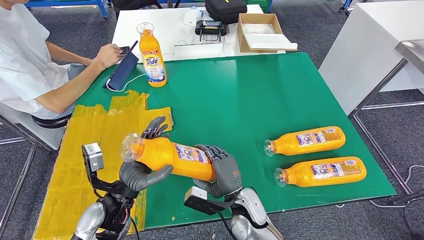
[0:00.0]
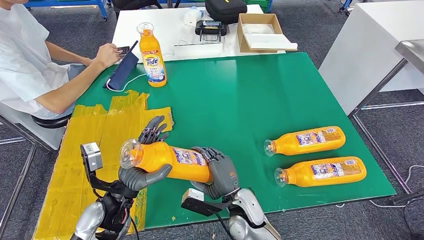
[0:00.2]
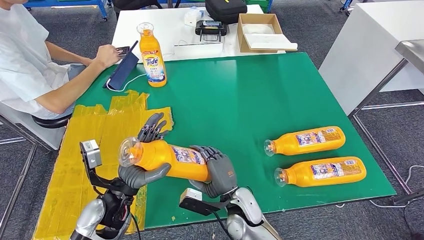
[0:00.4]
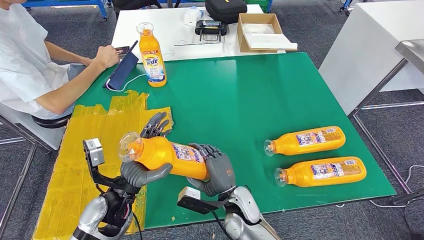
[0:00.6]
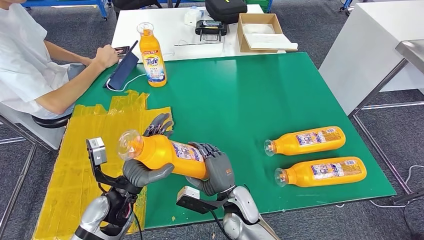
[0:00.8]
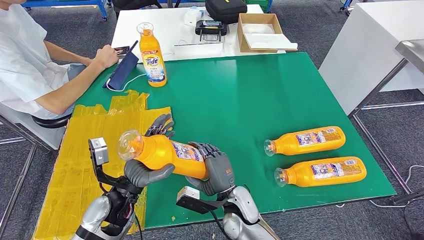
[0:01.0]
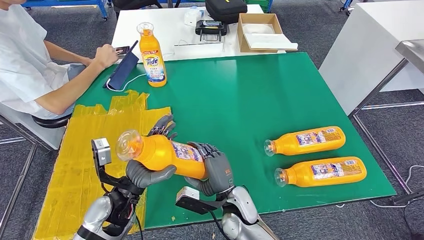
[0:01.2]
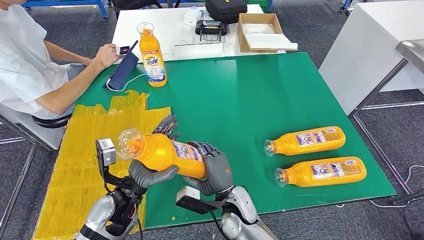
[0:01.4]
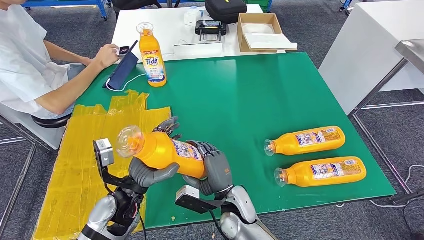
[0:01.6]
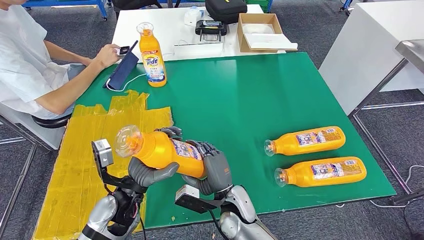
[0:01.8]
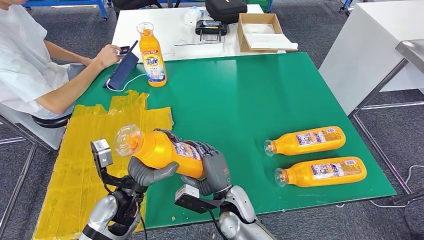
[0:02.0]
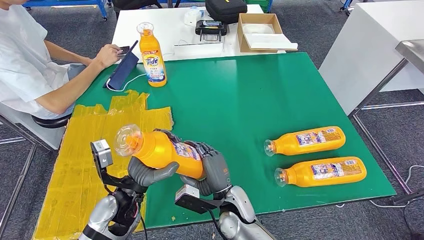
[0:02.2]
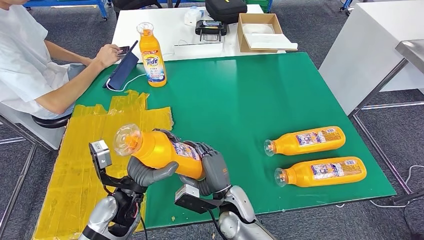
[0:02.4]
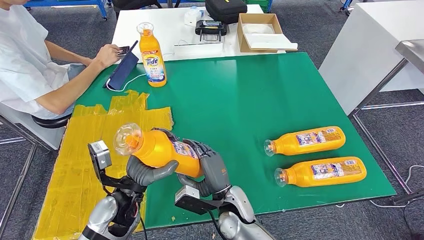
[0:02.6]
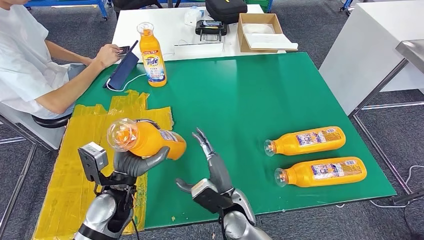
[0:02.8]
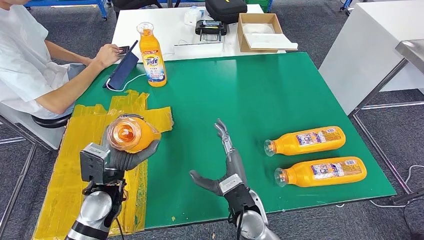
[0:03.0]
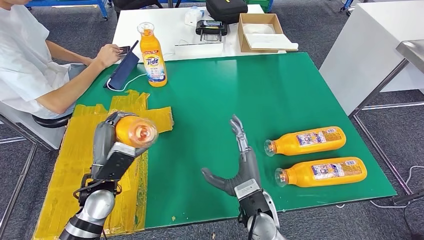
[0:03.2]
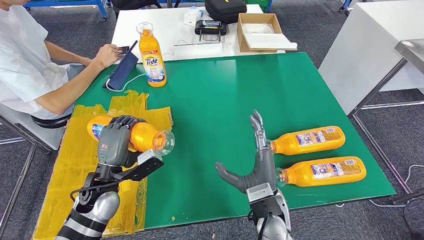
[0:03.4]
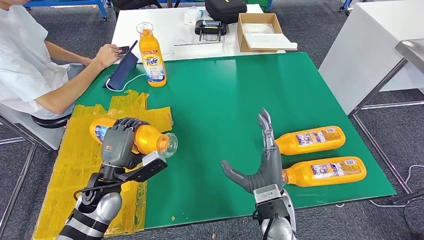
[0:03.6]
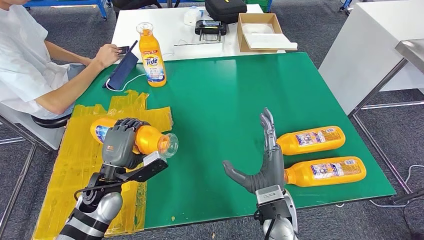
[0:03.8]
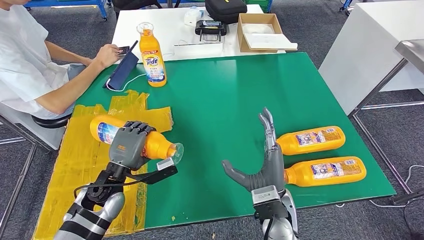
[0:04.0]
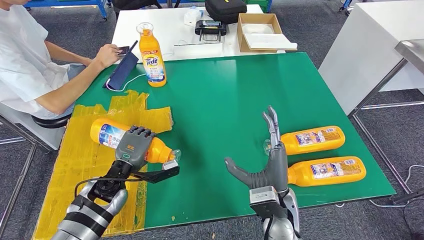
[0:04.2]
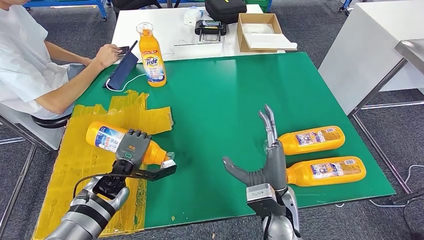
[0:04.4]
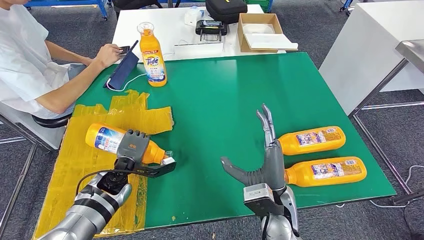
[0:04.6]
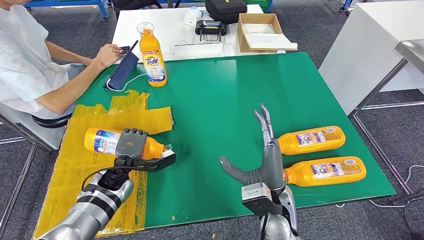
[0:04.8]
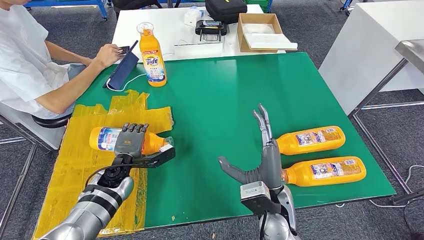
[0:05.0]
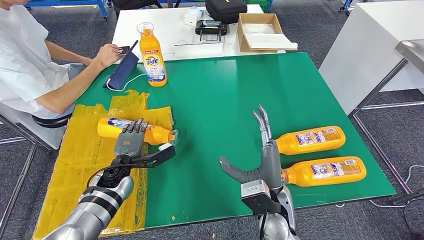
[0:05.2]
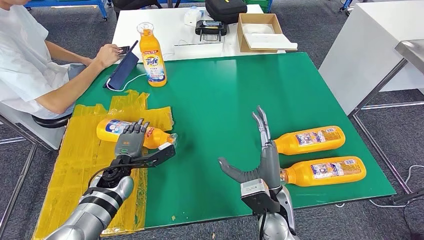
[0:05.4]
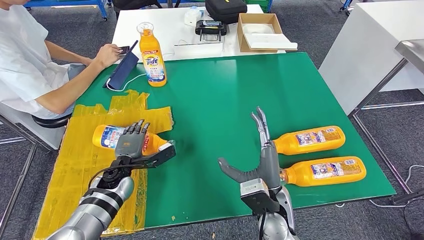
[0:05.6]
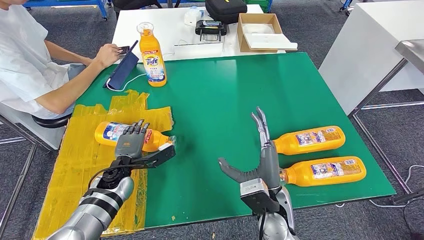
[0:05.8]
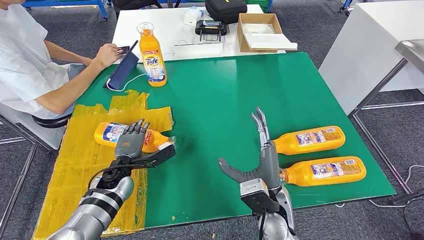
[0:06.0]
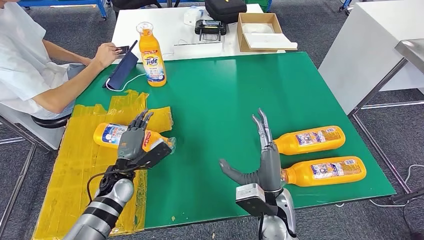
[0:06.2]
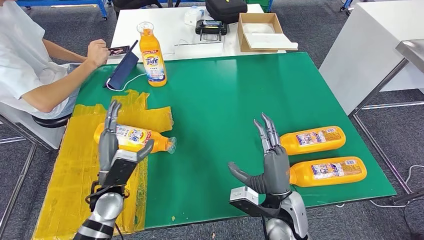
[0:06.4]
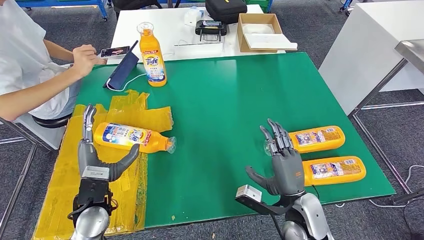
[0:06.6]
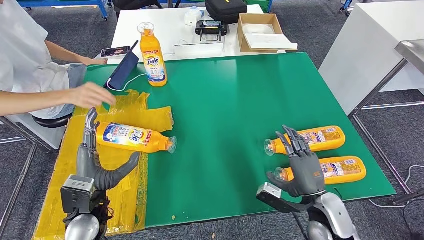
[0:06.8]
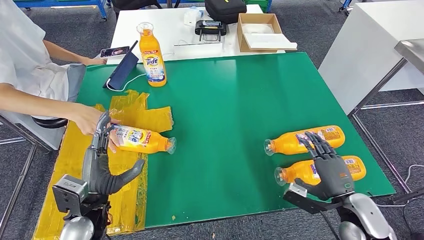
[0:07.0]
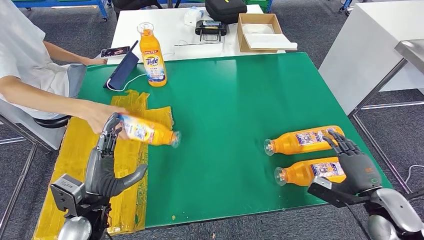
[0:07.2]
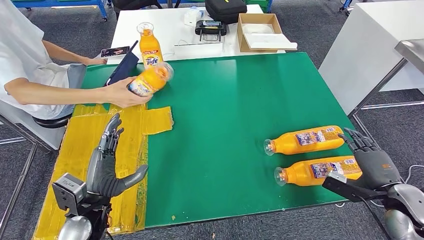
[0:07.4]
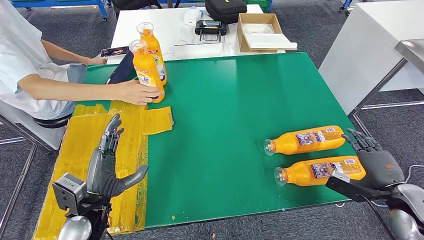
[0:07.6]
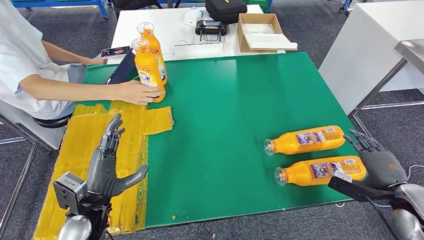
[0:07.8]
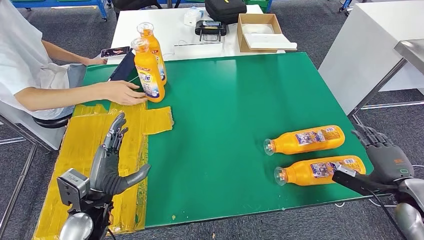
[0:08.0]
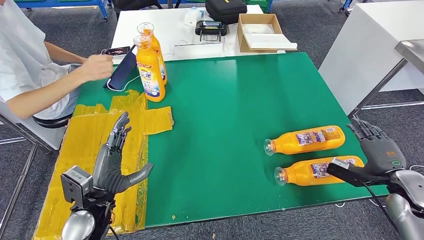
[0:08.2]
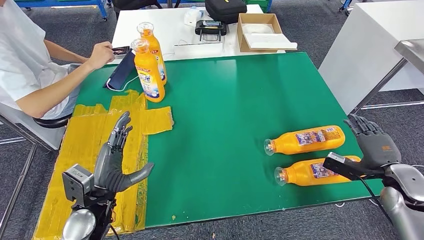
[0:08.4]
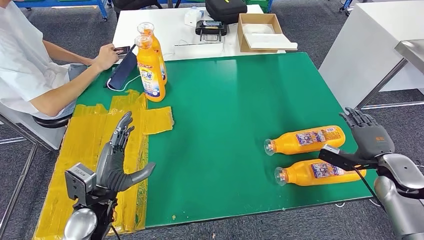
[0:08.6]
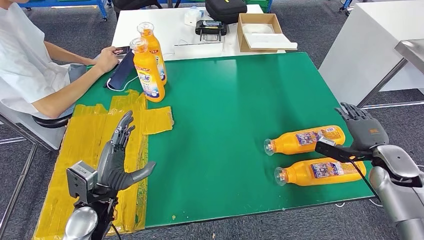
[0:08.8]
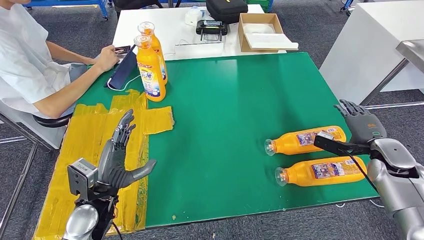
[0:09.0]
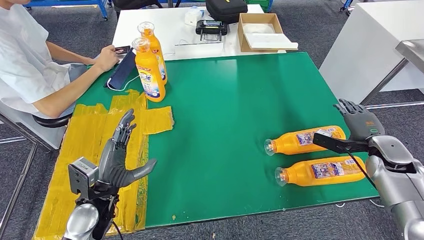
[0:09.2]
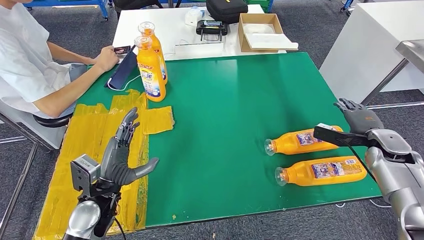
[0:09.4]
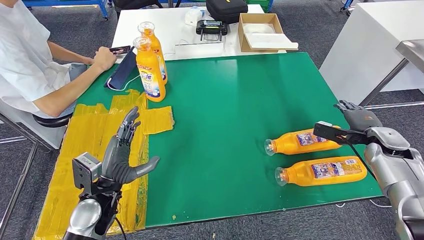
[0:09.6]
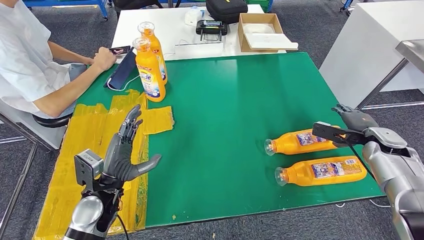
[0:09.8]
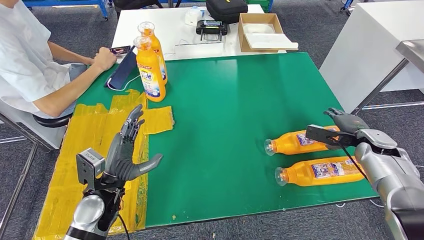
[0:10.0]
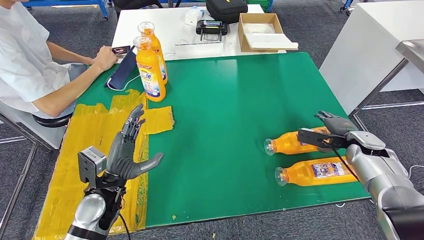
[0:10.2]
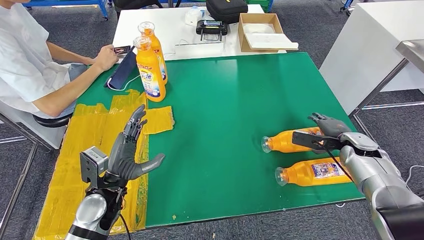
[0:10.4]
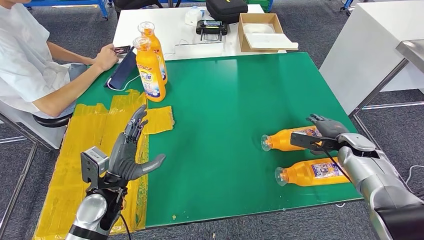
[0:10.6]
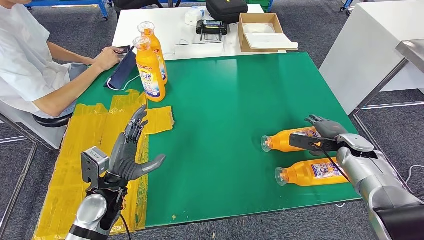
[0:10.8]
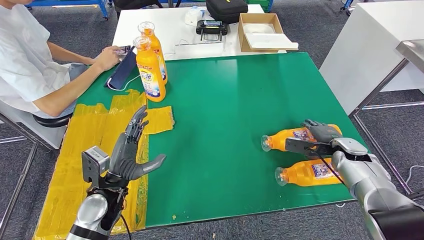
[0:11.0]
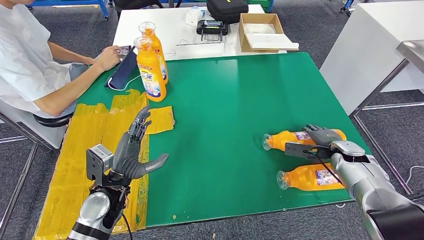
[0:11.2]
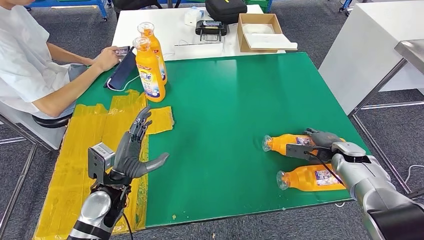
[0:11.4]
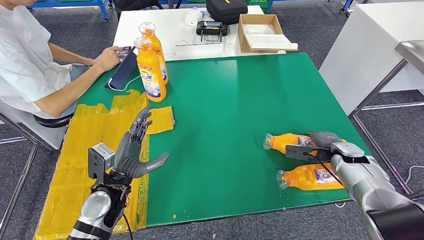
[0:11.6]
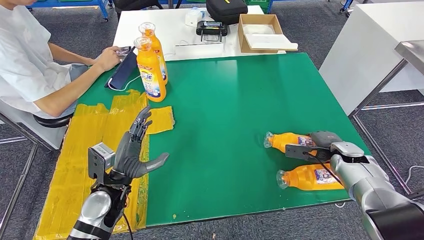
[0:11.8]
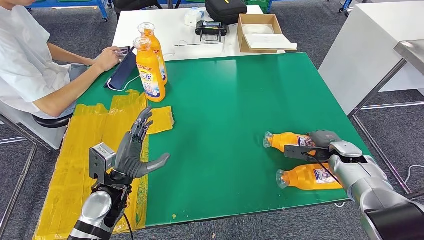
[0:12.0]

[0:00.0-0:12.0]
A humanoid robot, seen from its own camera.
Step, 0:00.0 to 0:08.0: Flip the fast-moving consumer goods bottle to the front side.
0:00.0 to 0:01.6: There are only small adjustments of the hands.
0:03.0 to 0:04.4: The right hand is displaced to the right by some 5 cm; the left hand is displaced downward and forward by some 10 cm.
0:07.6 to 0:09.0: The right hand travels forward by some 10 cm.
0:09.0 to 0:10.4: The right hand shifts approximately 5 cm forward.
0:10.4 to 0:12.0: The hands make only small movements.

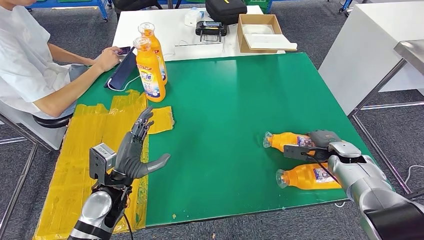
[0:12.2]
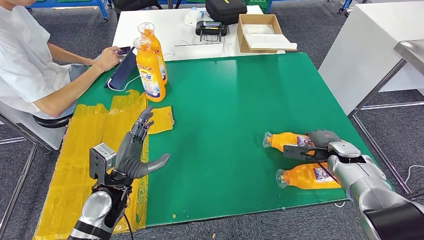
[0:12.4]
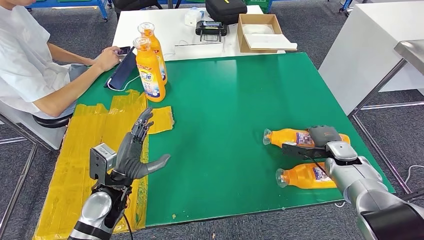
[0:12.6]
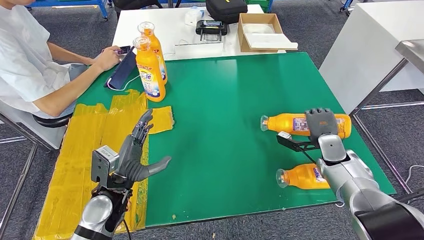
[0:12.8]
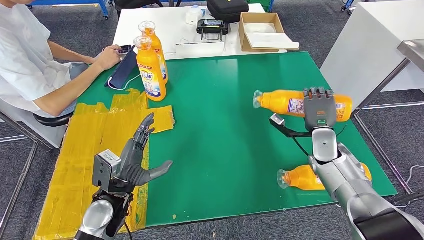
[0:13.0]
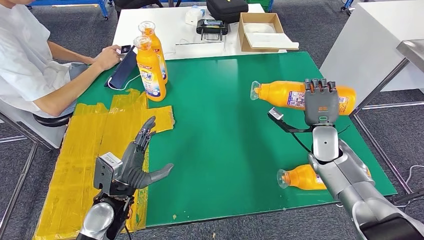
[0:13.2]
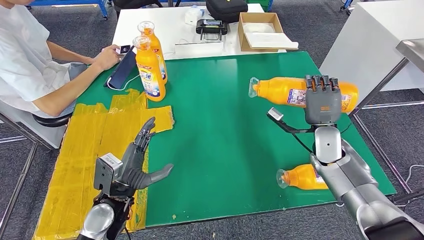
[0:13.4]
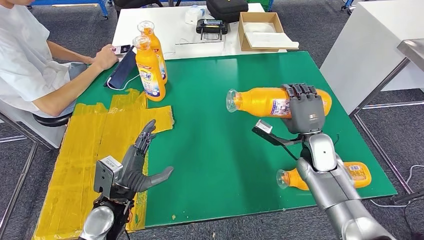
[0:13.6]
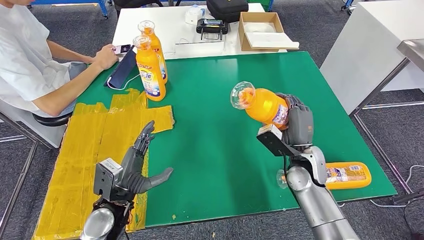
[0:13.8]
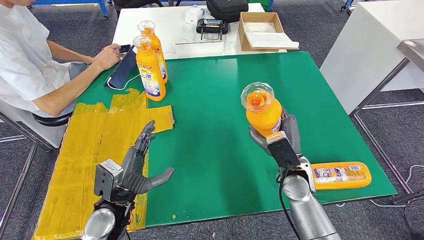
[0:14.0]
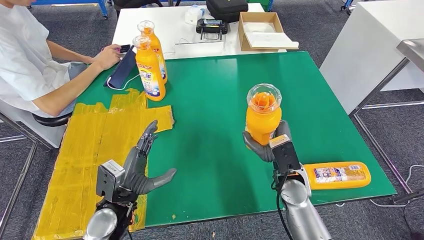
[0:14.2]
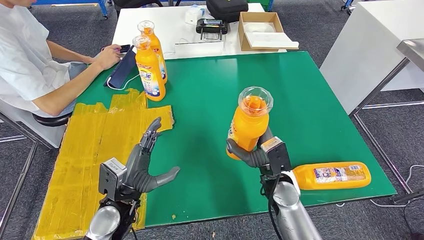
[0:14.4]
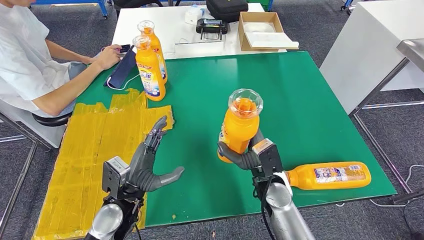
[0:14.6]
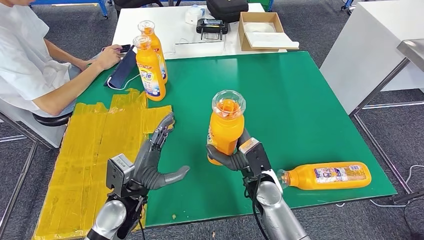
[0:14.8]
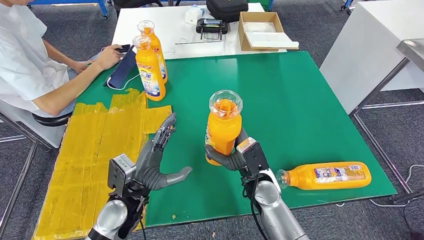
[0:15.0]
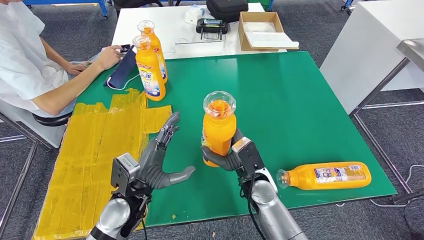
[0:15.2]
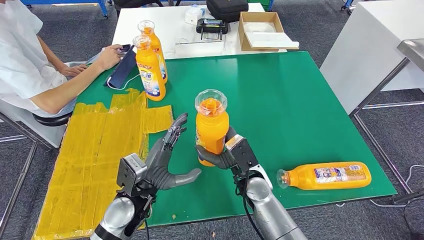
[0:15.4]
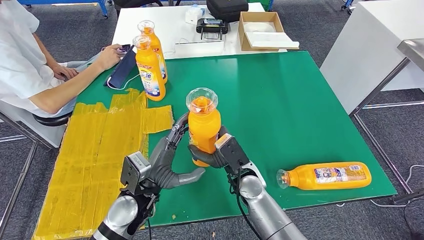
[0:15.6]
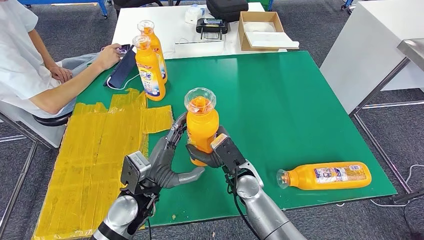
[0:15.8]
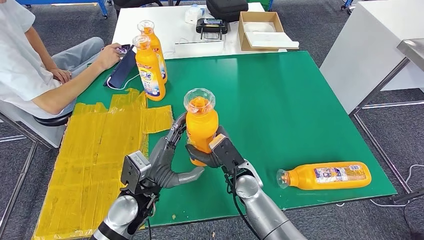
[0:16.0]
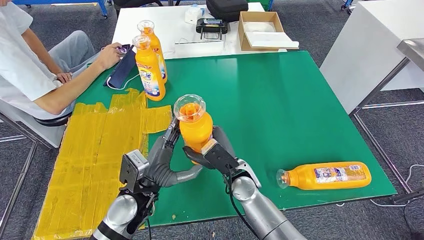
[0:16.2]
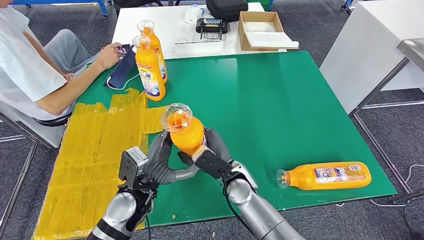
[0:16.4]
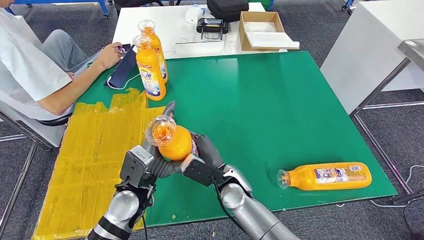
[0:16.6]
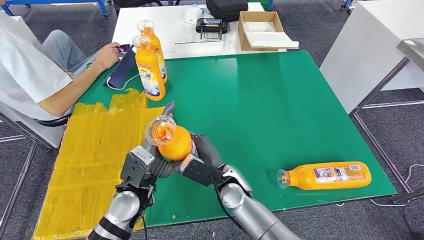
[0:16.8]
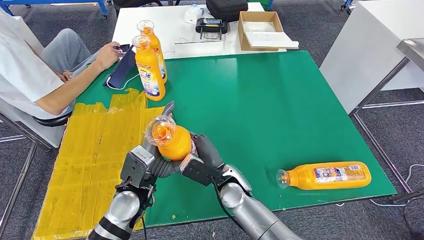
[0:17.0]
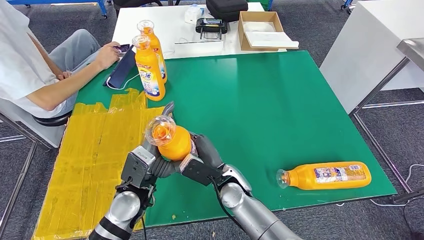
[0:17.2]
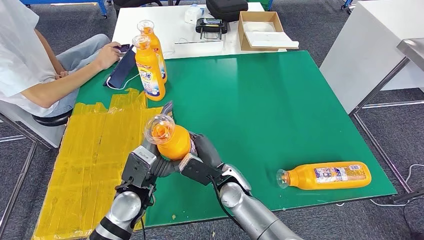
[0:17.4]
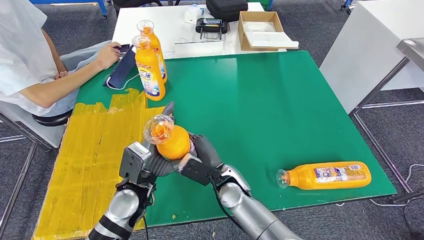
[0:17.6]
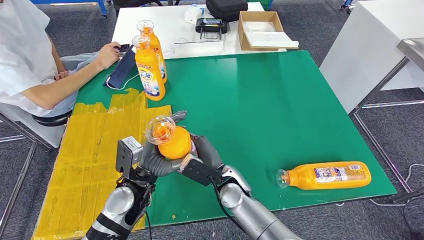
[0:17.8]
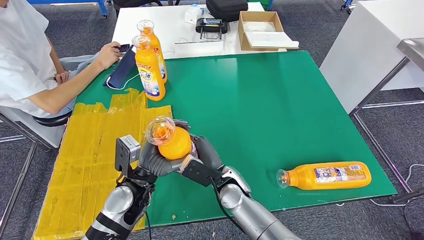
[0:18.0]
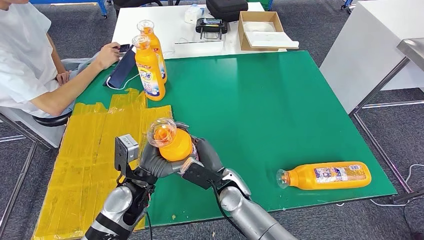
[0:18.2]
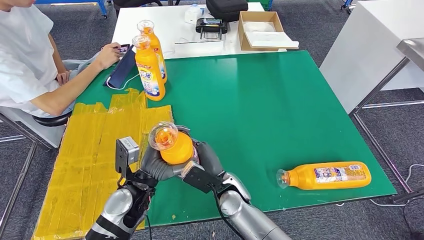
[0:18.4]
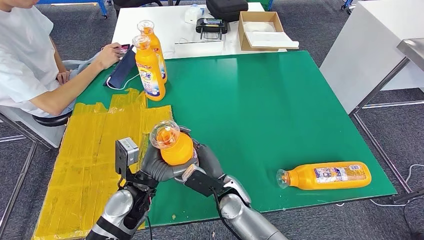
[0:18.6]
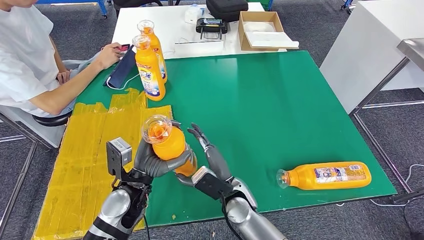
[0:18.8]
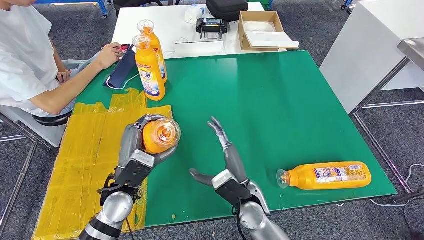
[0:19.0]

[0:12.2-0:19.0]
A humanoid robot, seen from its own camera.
0:13.6 to 0:15.0: The right hand shifts roughly 15 cm to the left and backward.
0:15.0 to 0:16.2: The hands move only a little.
0:16.2 to 0:17.6: The hands move only a little.
0:17.6 to 0:19.0: The right hand ends up approximately 5 cm from where it was.
